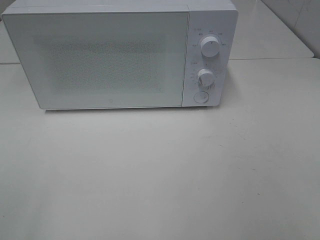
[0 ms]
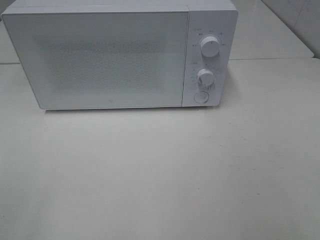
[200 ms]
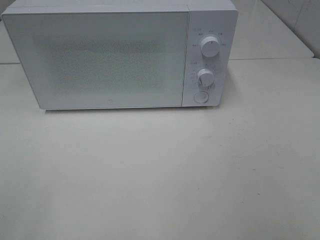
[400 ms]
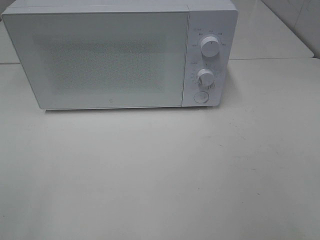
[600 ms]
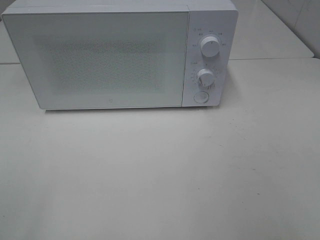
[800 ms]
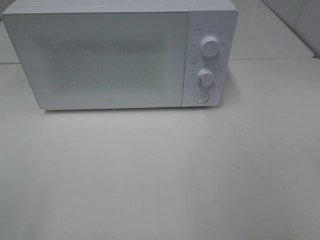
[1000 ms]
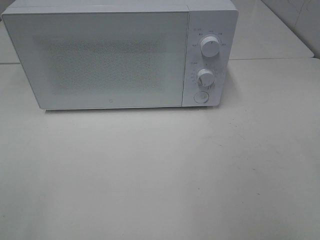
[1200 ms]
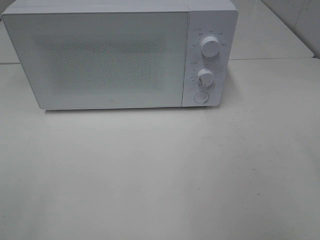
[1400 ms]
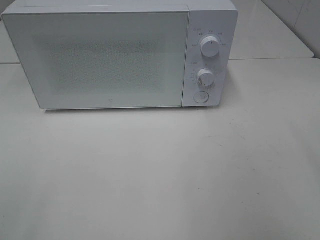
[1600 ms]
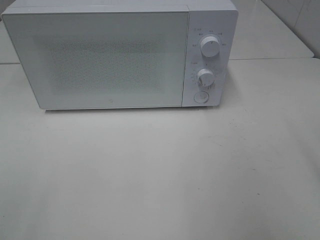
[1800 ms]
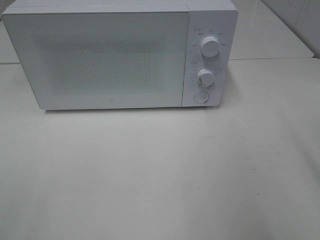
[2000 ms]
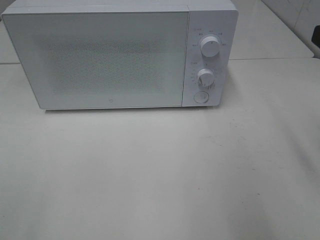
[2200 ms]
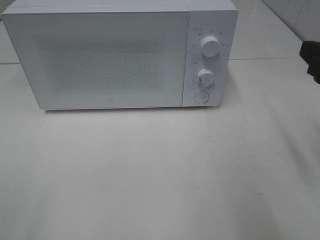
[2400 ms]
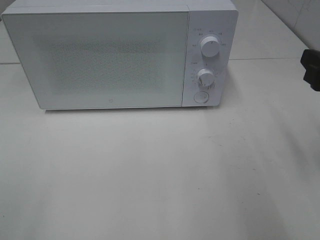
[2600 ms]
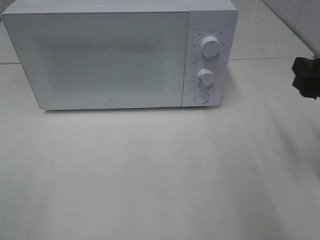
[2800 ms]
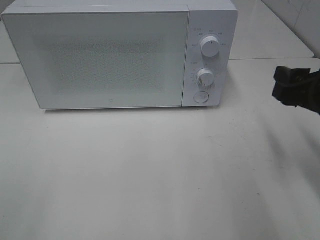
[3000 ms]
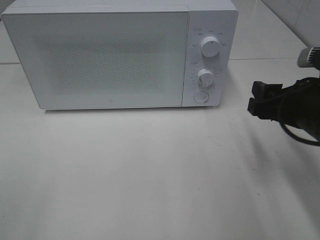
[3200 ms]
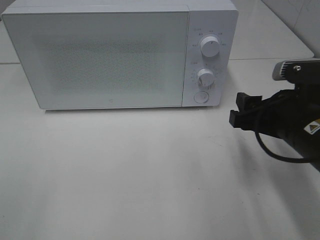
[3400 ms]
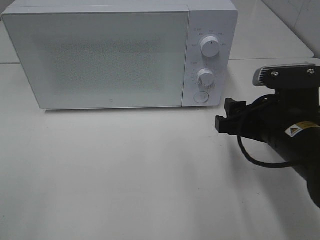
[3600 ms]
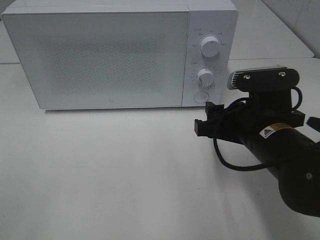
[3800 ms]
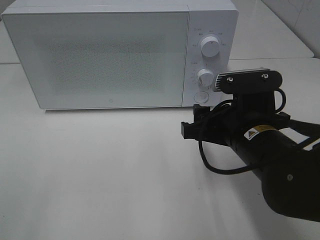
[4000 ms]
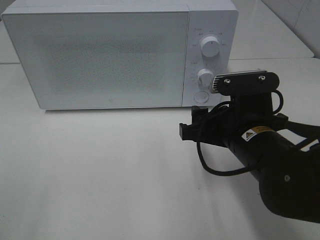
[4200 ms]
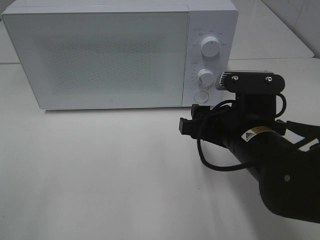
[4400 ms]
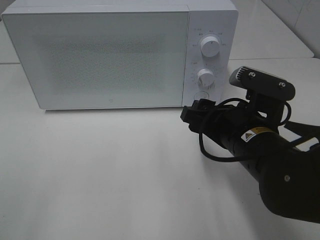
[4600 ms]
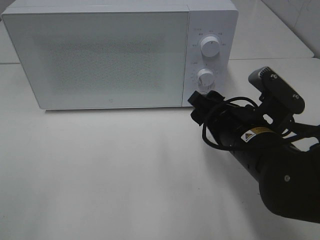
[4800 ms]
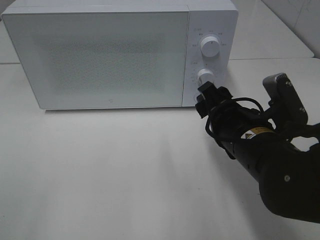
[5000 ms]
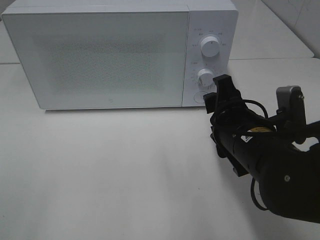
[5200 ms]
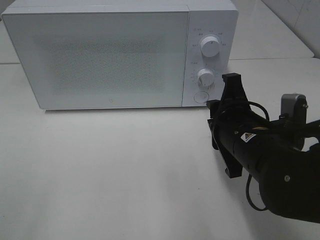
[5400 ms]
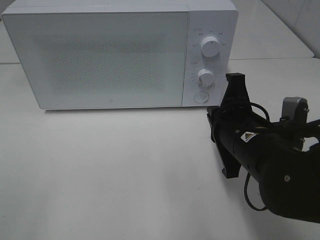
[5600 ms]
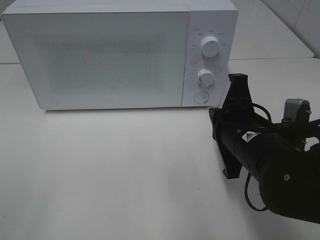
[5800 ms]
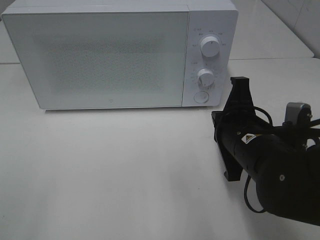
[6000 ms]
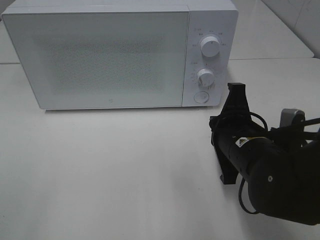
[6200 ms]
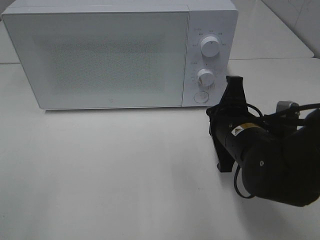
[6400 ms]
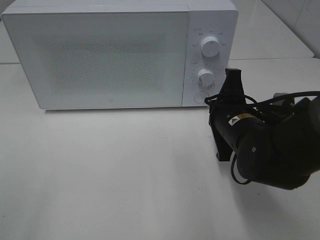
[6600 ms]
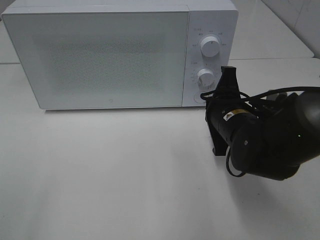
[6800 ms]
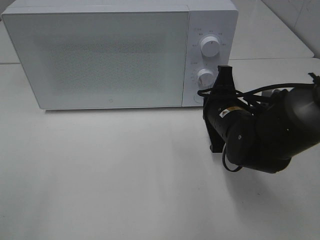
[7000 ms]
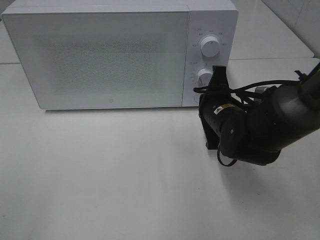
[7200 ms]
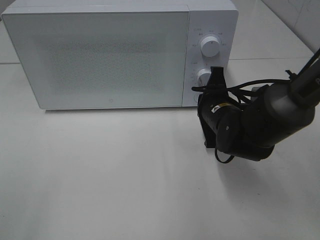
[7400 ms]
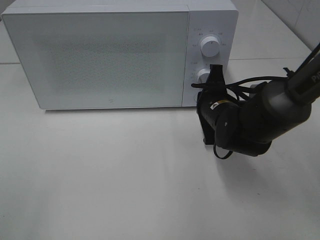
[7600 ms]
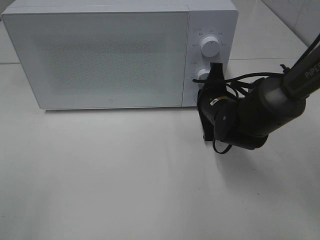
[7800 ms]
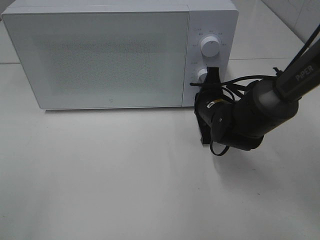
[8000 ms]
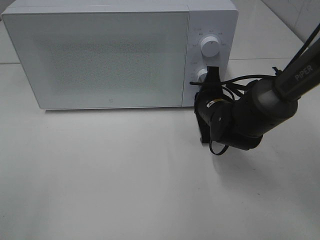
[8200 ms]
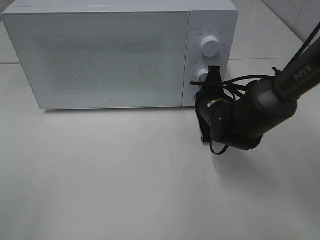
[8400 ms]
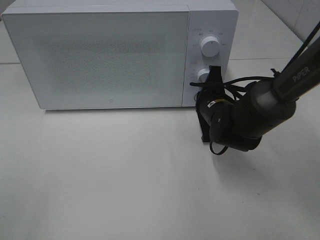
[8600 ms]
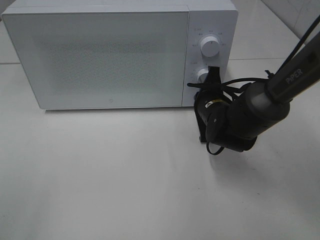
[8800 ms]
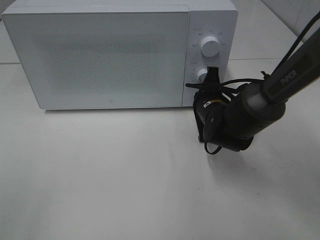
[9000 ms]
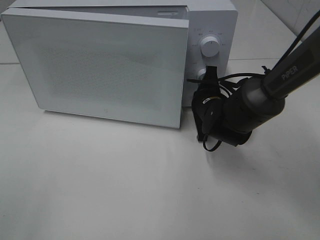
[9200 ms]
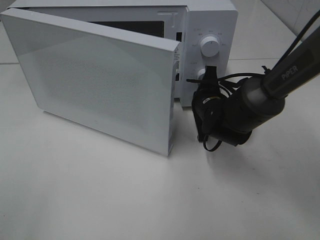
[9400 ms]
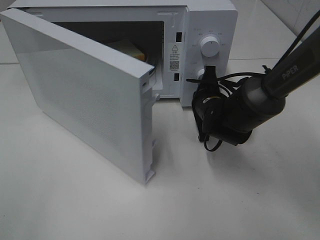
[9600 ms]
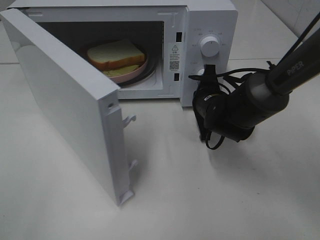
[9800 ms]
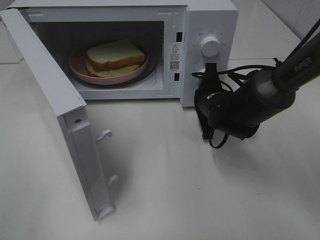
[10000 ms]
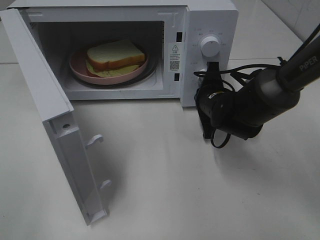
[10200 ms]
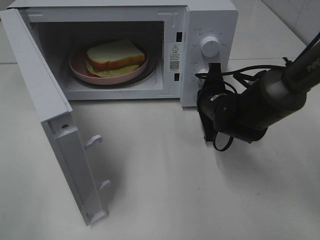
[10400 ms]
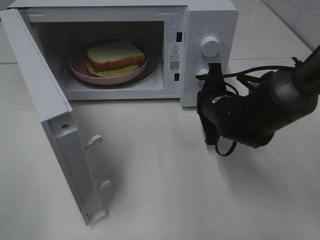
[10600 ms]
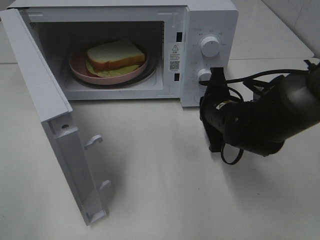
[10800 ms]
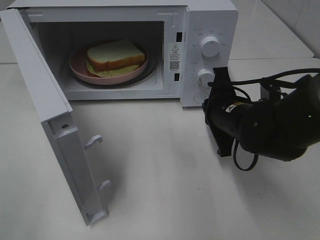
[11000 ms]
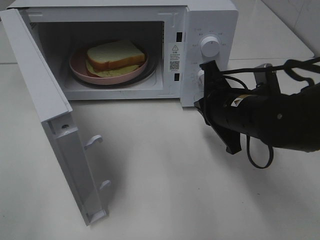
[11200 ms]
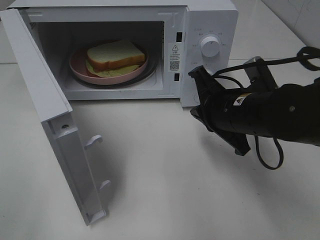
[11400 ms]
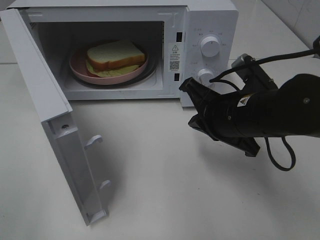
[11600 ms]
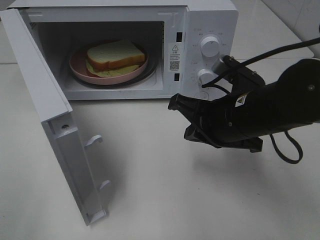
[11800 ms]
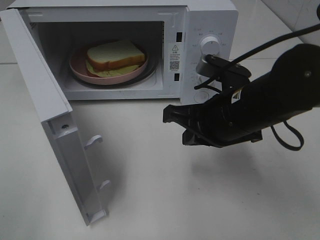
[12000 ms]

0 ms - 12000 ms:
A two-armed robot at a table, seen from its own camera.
Task of the whole recording: Heat Sandwich.
Step, 0 ms - 10200 ms: Right hand: press the switch.
1600 ms - 3000 ms: The right gripper shifts roughly 15 cm downward and forward.
3000 ms - 4400 ms: The right gripper heads to the left and downward, covering roughly 15 cm.
4400 ms - 6000 ms: The right gripper closes up.
6000 ms - 7600 ms: The right gripper travels forward by approximately 10 cm.
7600 ms - 9000 ms: The grippers make only small movements.
10400 ms - 12000 ms: The right gripper travels backward and upward by about 15 cm.

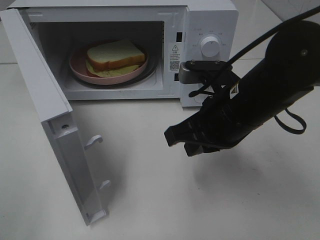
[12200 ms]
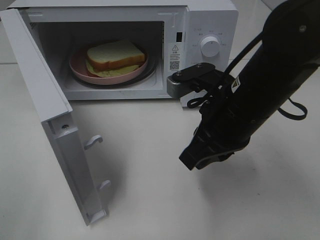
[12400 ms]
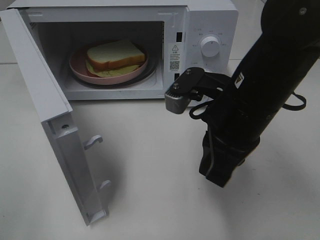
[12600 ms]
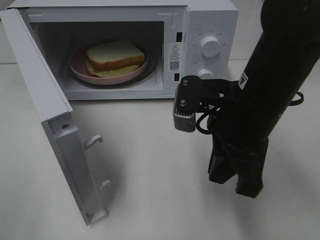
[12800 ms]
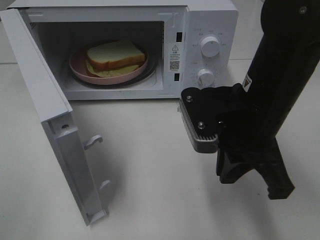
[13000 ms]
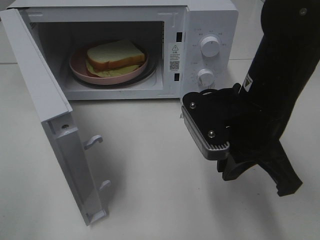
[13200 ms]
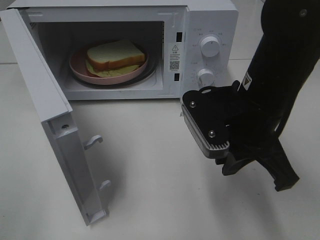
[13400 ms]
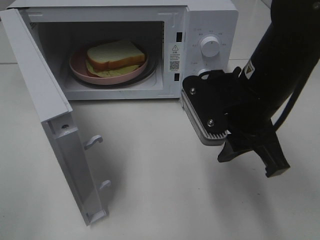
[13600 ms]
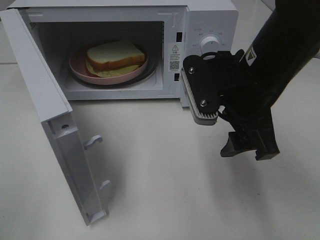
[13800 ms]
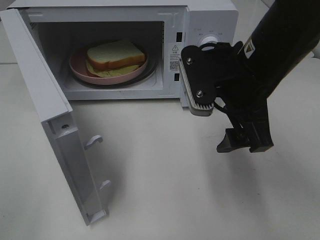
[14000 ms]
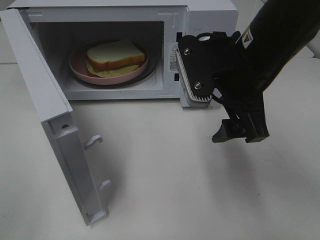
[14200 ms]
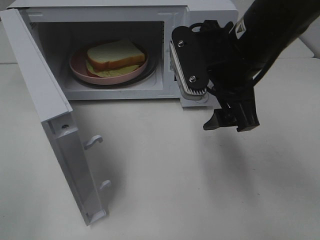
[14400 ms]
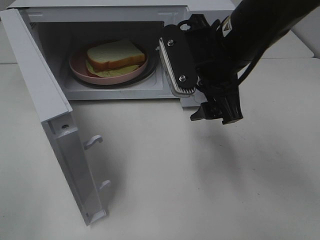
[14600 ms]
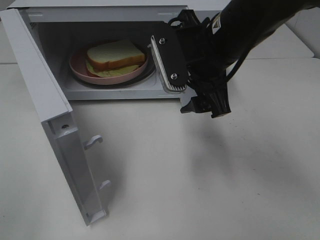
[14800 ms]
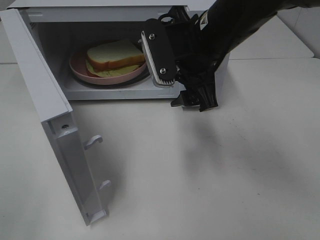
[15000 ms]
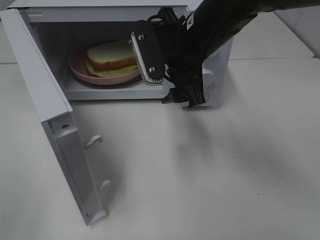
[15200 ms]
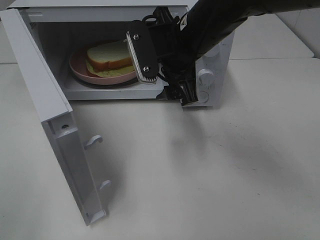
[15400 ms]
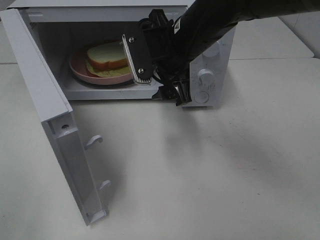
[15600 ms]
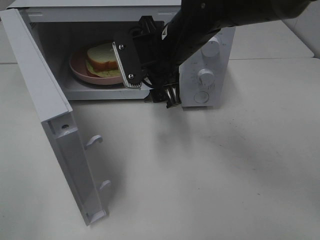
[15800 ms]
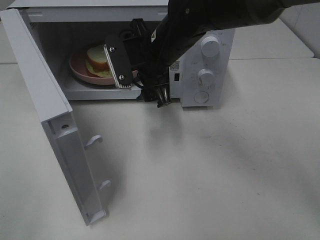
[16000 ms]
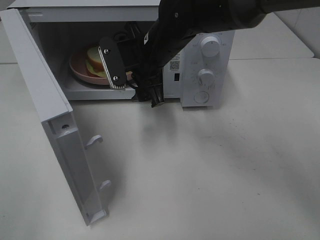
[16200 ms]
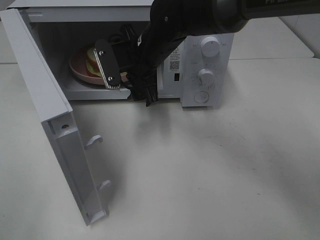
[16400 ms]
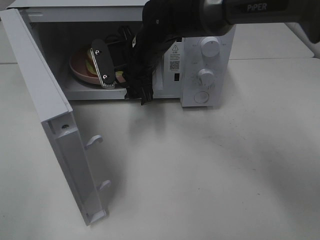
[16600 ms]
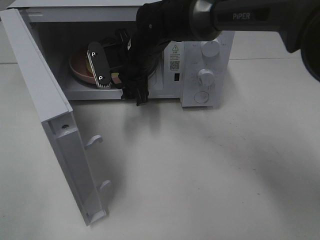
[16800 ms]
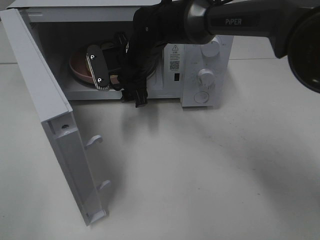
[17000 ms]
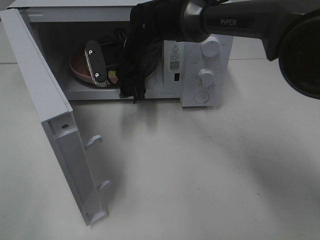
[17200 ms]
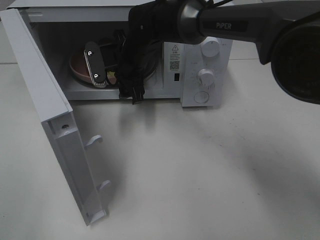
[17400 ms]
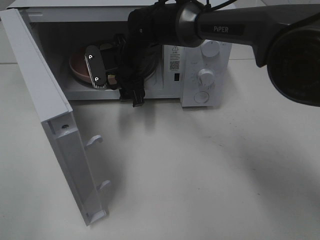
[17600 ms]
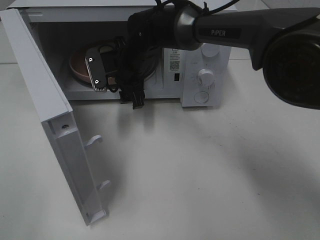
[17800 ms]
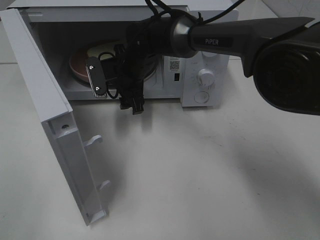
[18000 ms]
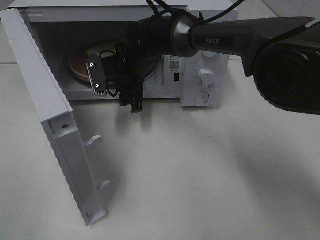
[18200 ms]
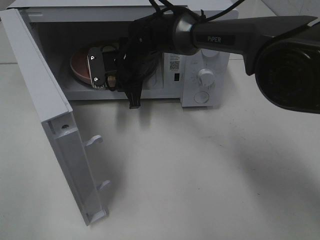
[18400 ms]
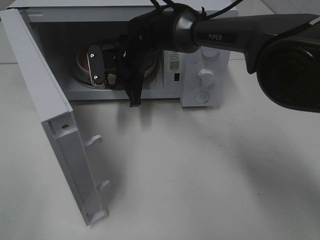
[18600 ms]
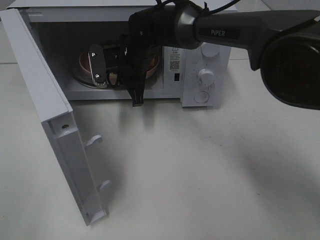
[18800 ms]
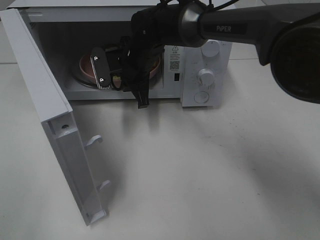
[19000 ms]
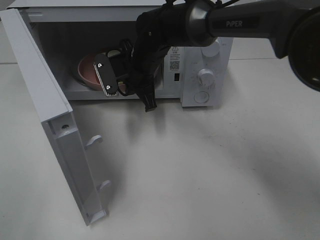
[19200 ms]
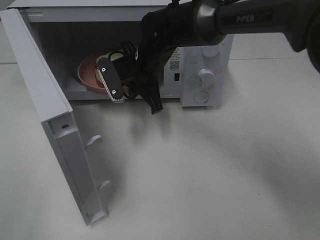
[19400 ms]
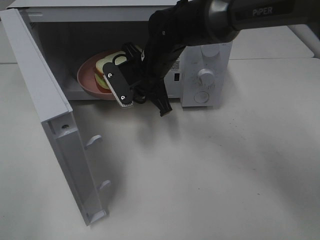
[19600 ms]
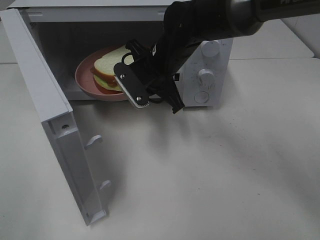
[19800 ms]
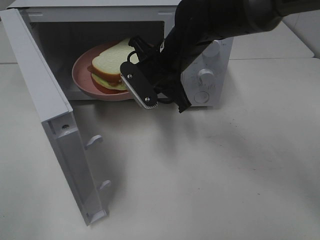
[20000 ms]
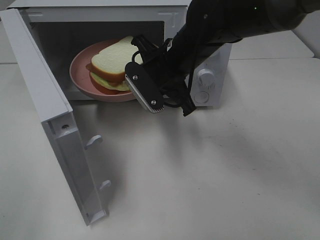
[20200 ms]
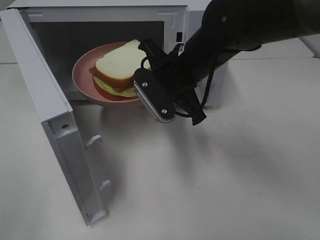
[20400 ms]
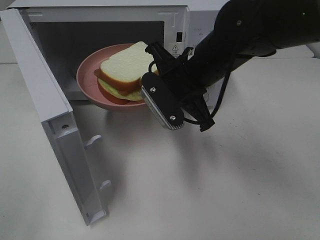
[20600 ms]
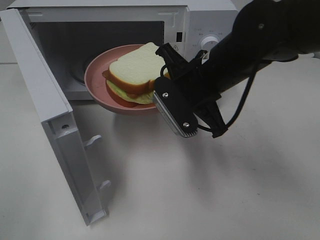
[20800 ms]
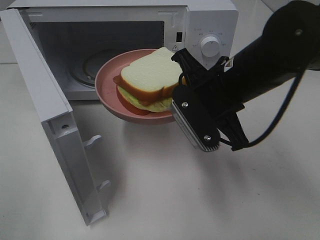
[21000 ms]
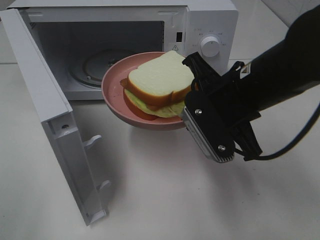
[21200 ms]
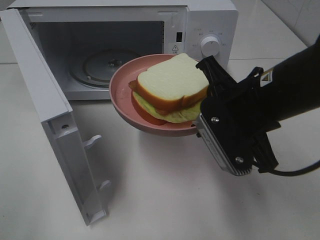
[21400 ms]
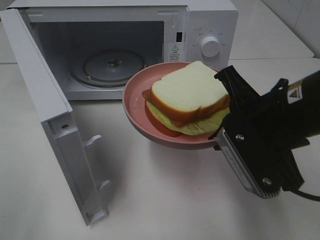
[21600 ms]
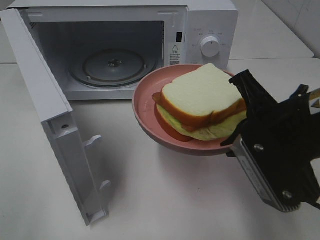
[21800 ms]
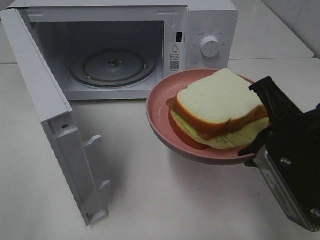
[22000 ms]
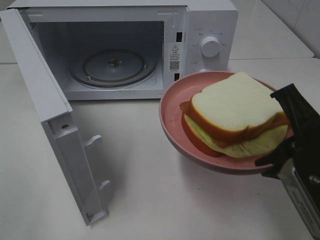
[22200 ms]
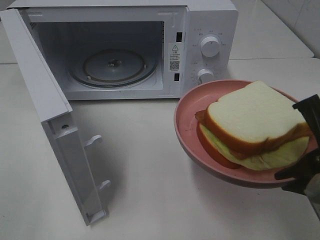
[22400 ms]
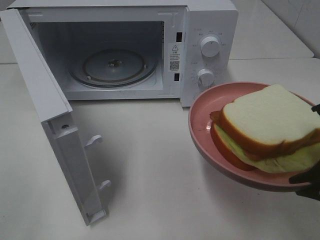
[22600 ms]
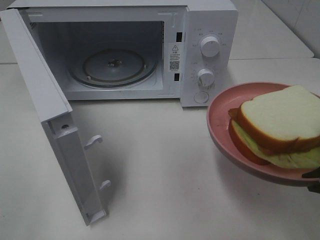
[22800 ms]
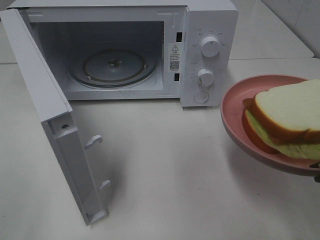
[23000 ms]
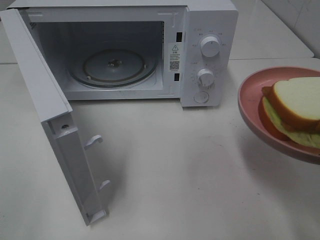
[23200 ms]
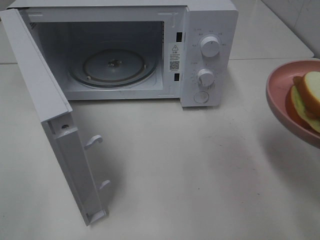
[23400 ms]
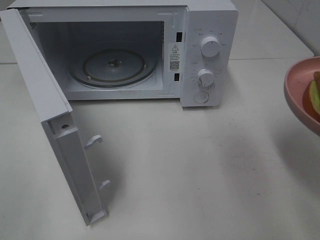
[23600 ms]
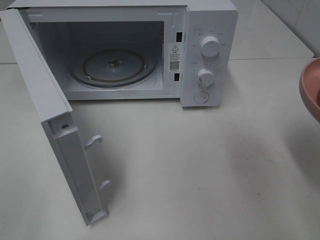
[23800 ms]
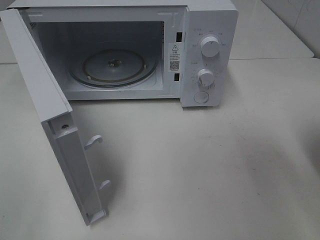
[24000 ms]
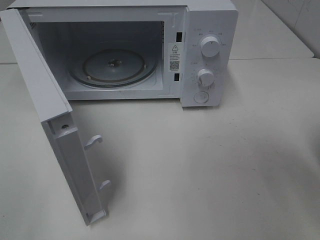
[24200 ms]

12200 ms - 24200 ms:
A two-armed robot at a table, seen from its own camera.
Task of the whole recording: Heat Sandwich.
Step, 12200 ms - 18600 ms: Right hand: grab the plate with the sandwich.
12200 ms - 13800 ms: The right gripper opens.
13800 ms - 15200 ms: The right gripper goes some 10 cm forward and to the left.
15200 ms - 16600 ms: The right gripper moves forward, to the left and downward, roughly 15 cm.
16600 ms - 18200 ms: The right gripper ends up about 5 cm from where it was.
18200 ms - 19800 ms: The right gripper goes some 10 cm to the right and backward, and closes its fingers.
19800 ms - 21200 ms: The right gripper travels backward and to the right by approximately 15 cm.
21200 ms - 22600 ms: The right gripper moves backward and to the right, approximately 15 cm.
